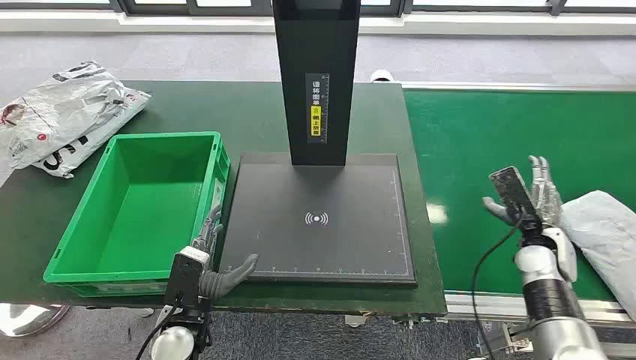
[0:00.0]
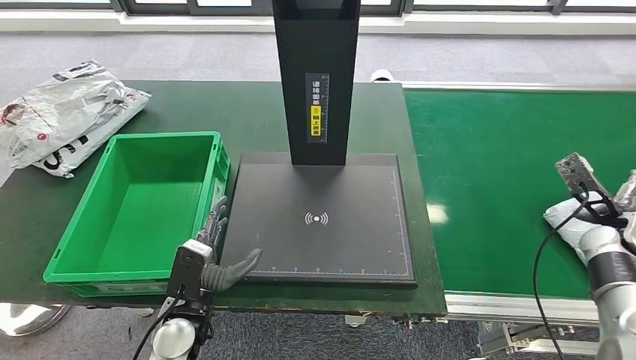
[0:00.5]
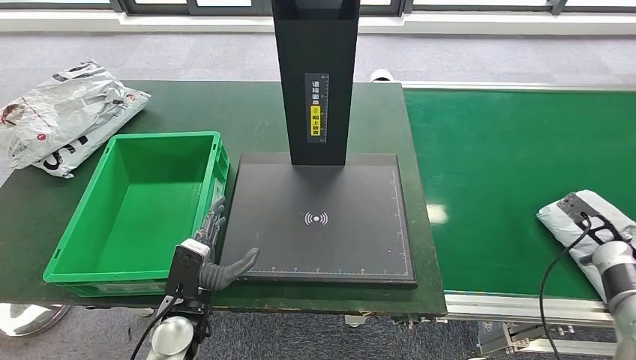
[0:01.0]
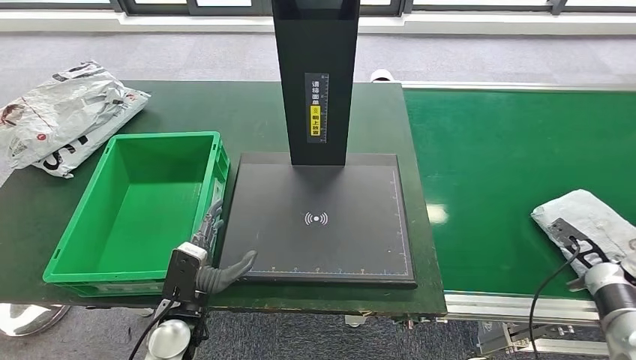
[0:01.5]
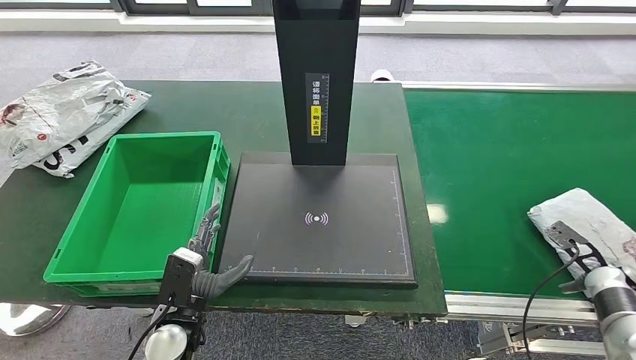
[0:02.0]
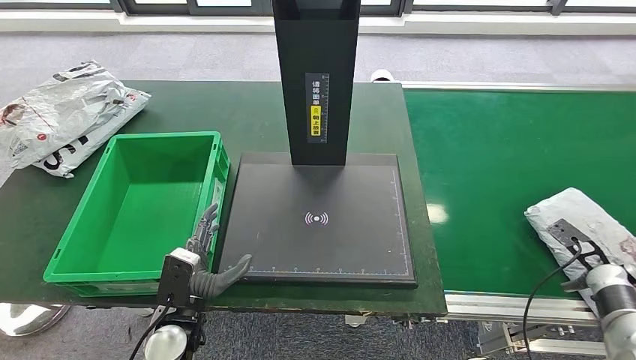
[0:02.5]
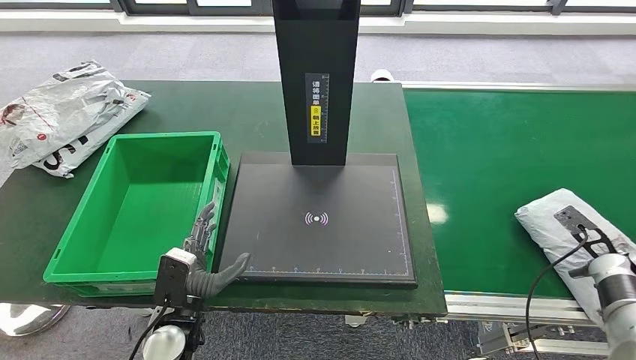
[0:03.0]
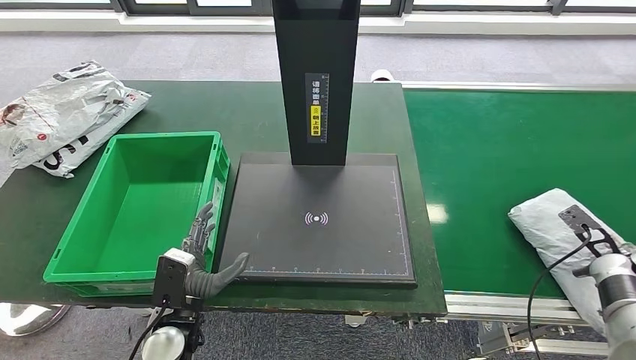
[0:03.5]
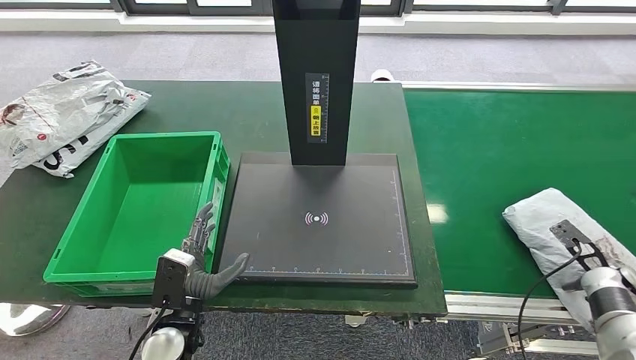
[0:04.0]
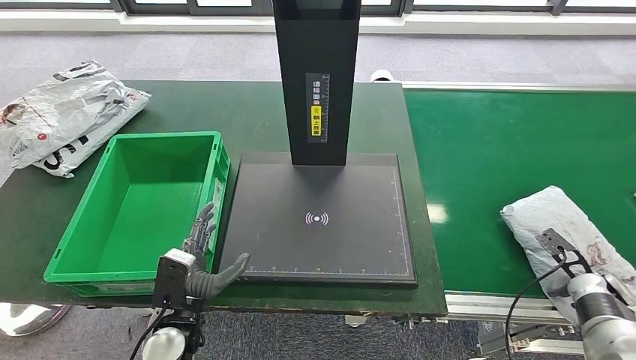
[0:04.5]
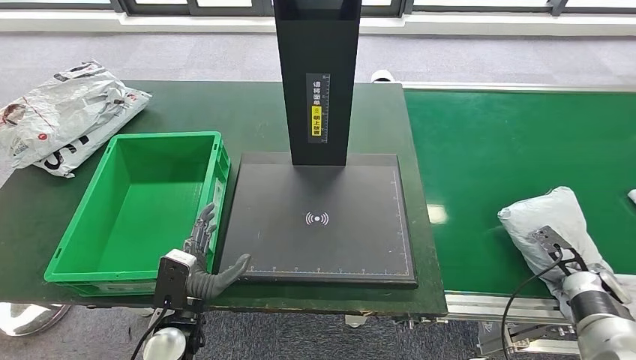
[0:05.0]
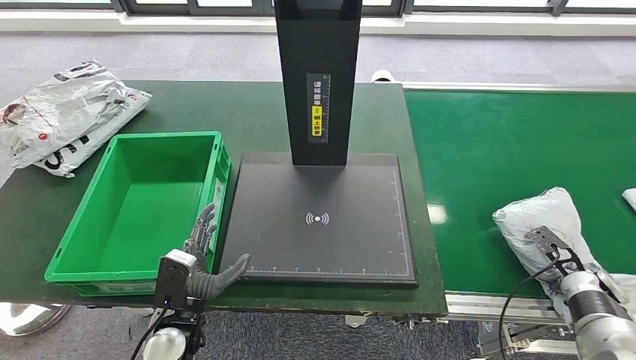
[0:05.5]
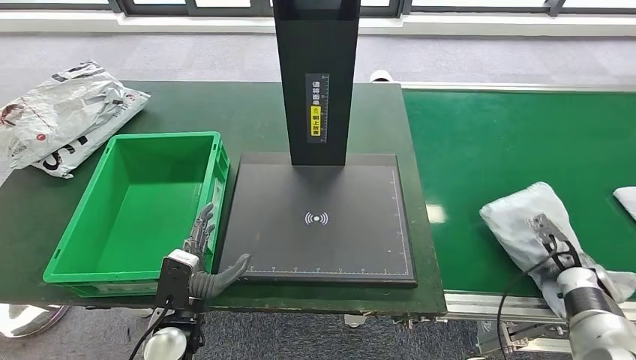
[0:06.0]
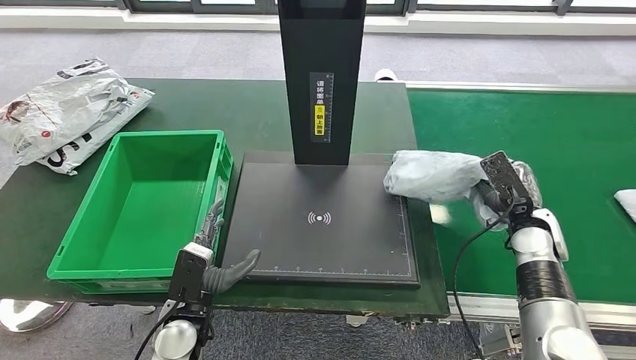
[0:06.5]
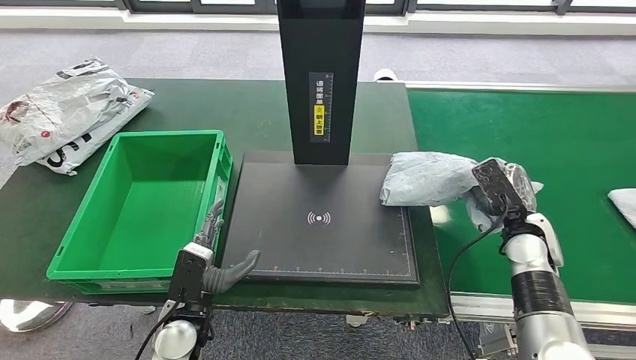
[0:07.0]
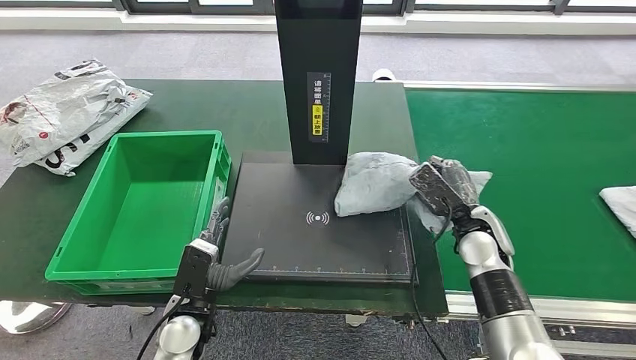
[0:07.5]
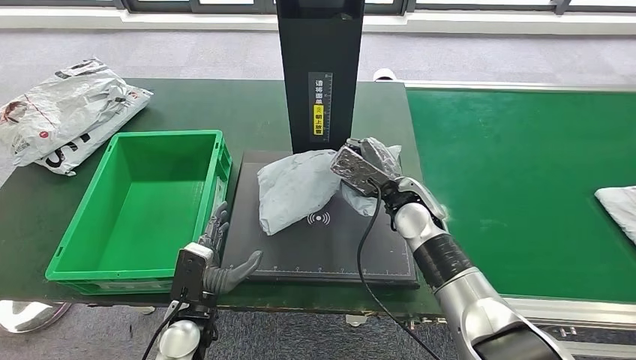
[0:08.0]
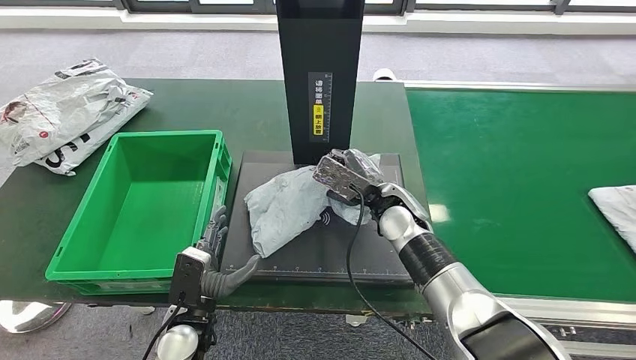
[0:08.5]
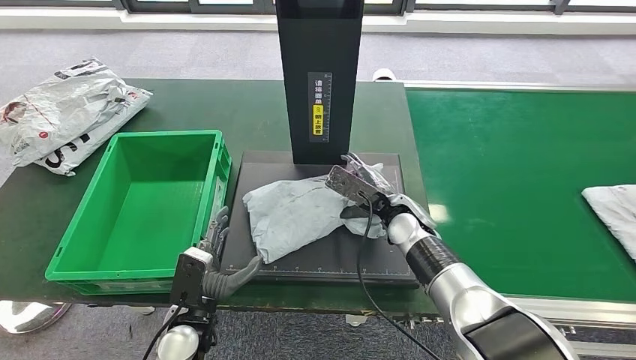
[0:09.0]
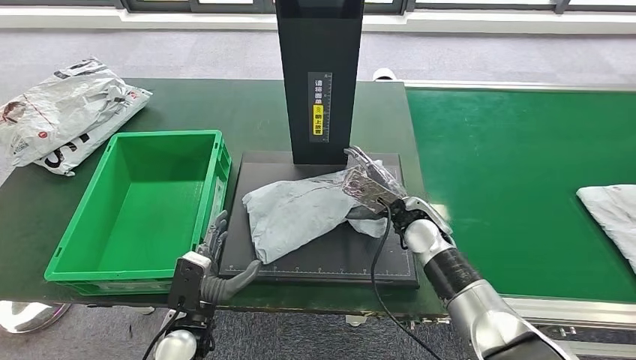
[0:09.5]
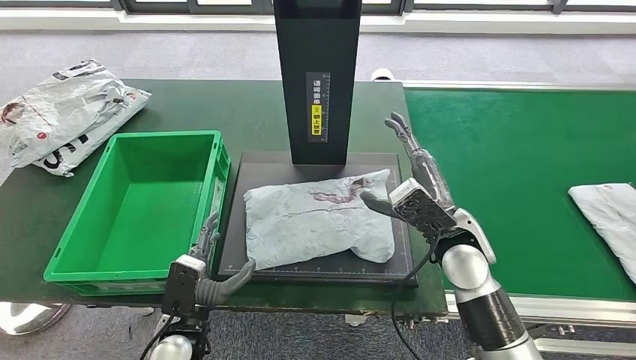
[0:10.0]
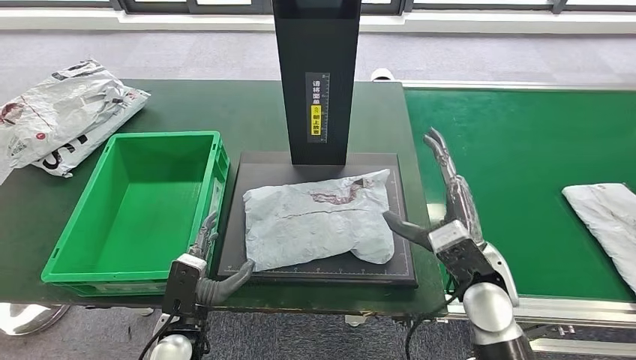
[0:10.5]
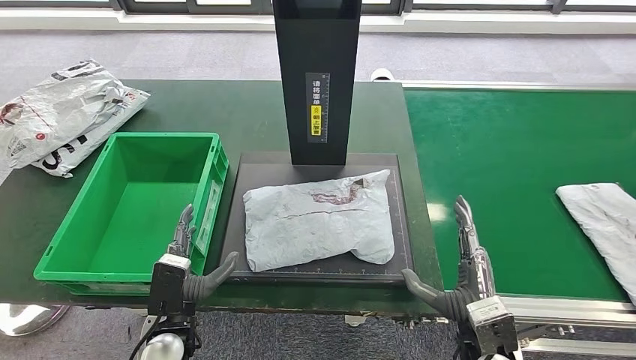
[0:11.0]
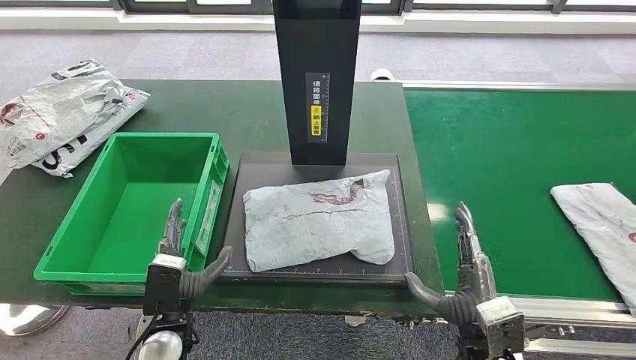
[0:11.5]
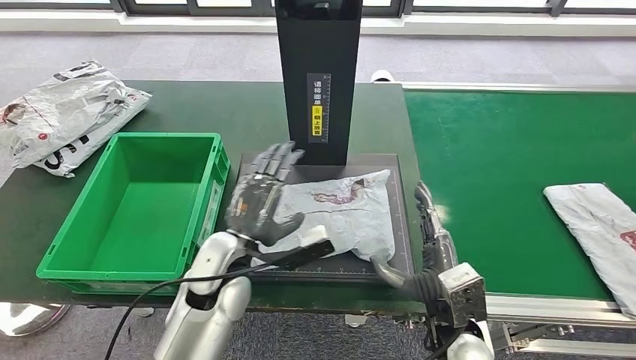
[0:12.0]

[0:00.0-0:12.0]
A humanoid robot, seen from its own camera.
Step, 0:00.0 to 0:07.0: Take the parcel off the conveyor belt.
Step, 0:07.5 to 0:10.0: Place the parcel onto the inbound machine.
0:02.0 to 0:04.0: The hands stay close to where they were, moving slightly.
0:04.0 to 0:06.0: The right hand changes place by approximately 5 cm.

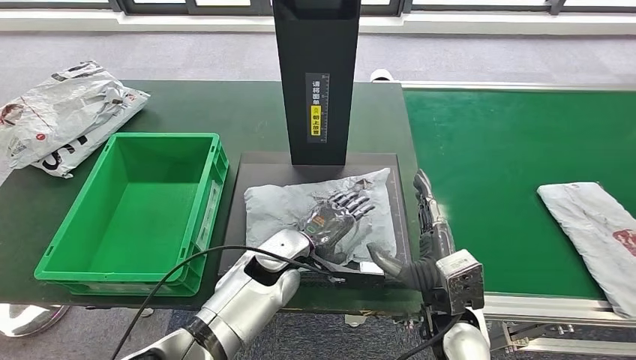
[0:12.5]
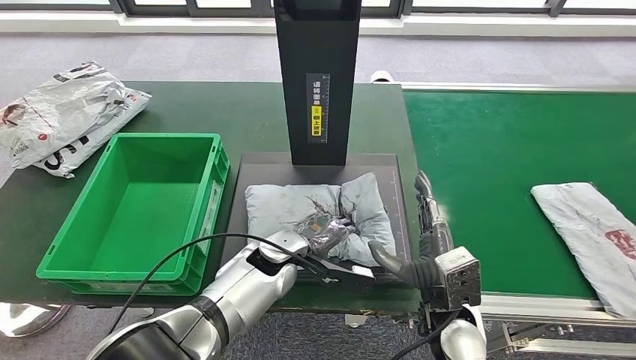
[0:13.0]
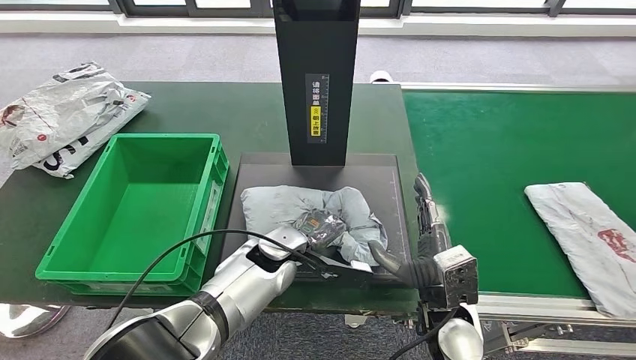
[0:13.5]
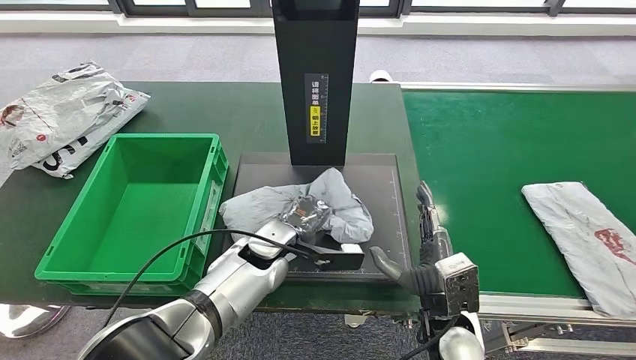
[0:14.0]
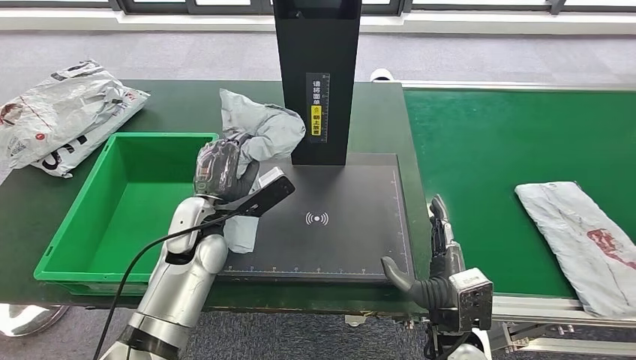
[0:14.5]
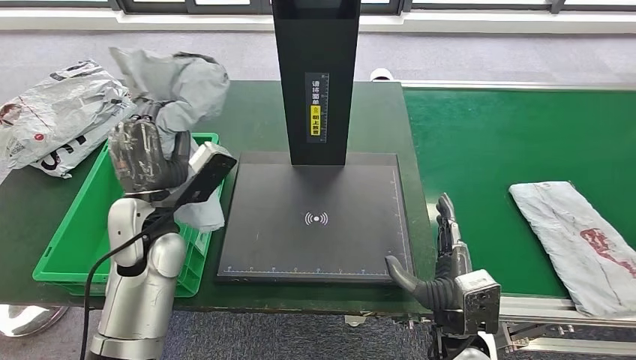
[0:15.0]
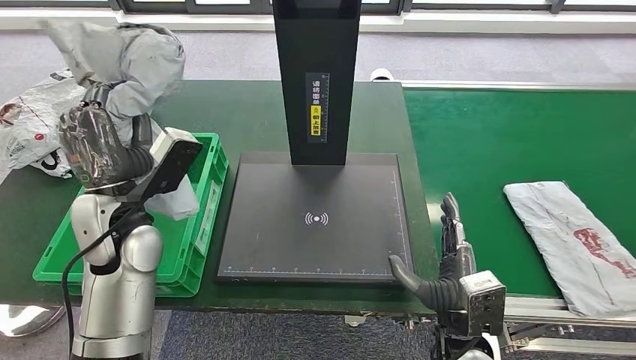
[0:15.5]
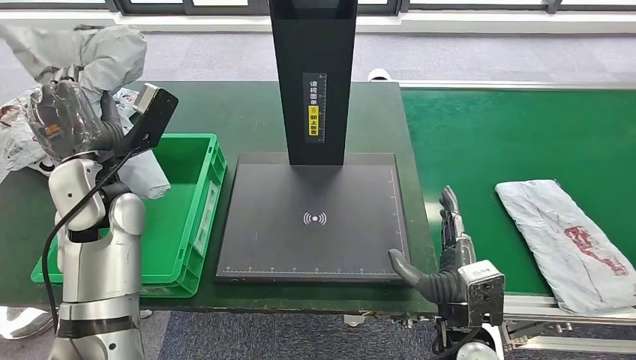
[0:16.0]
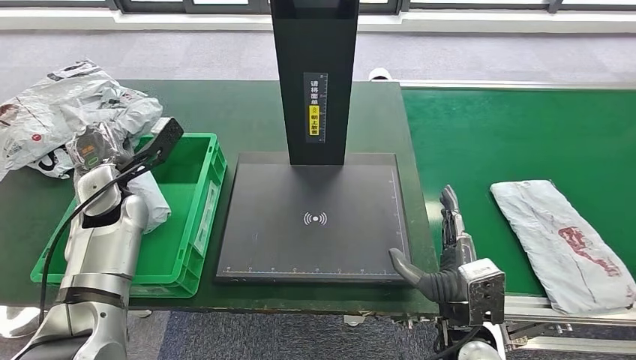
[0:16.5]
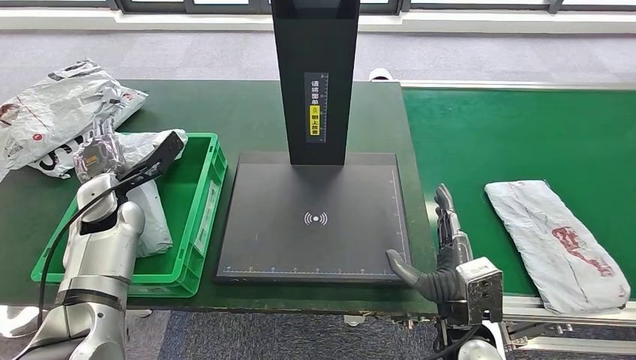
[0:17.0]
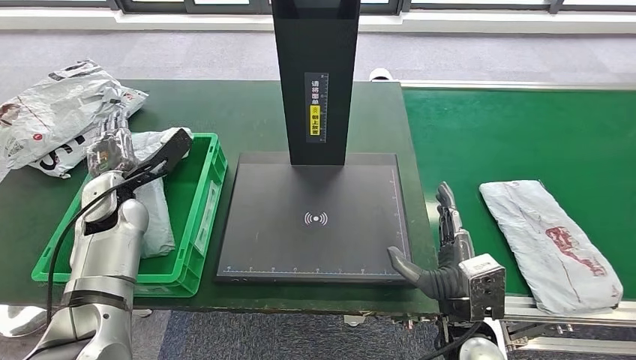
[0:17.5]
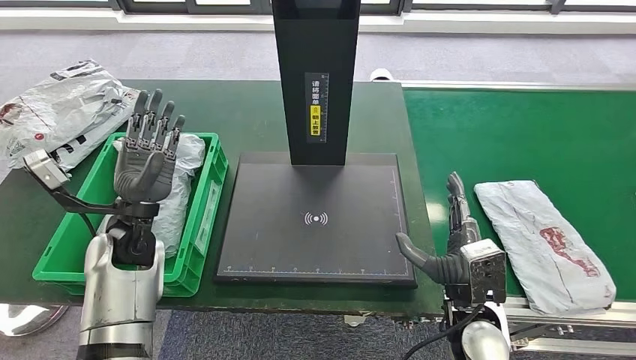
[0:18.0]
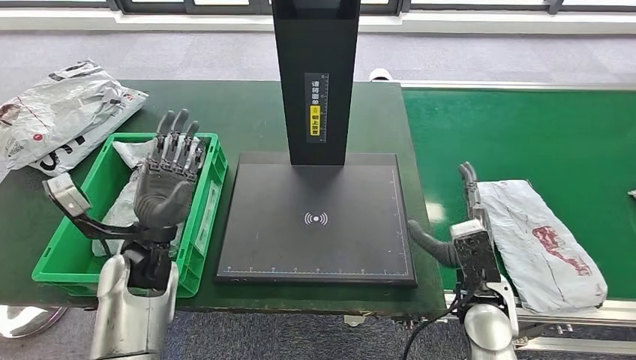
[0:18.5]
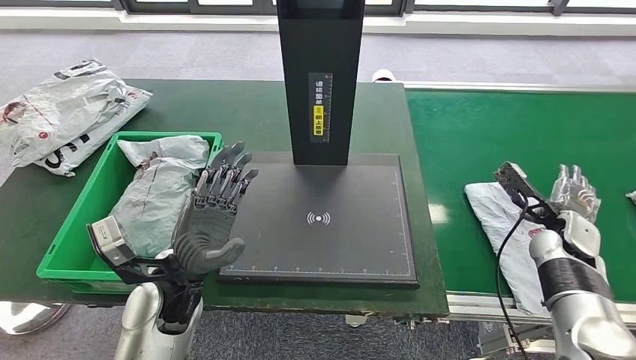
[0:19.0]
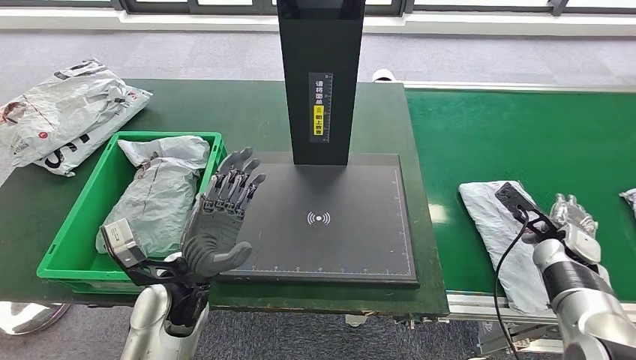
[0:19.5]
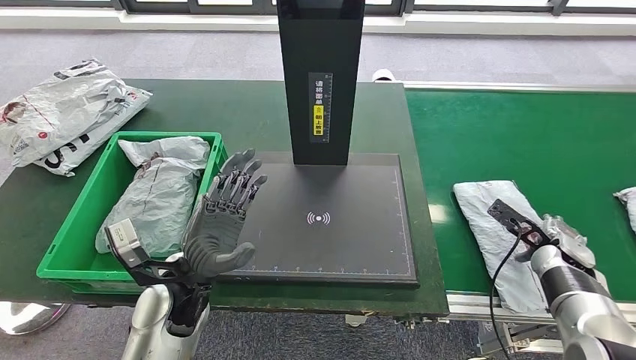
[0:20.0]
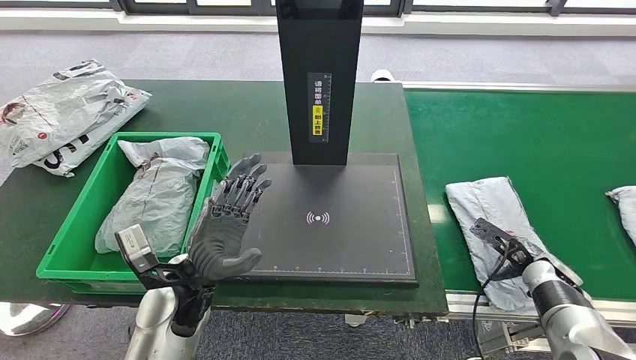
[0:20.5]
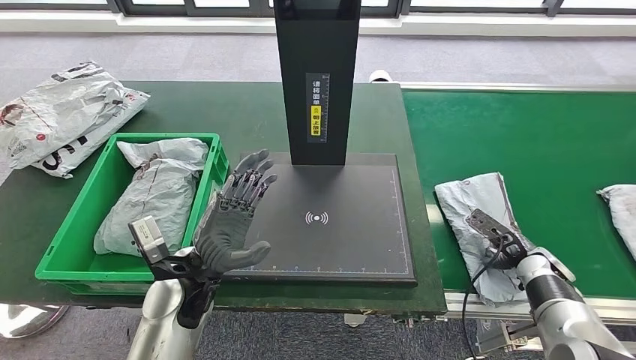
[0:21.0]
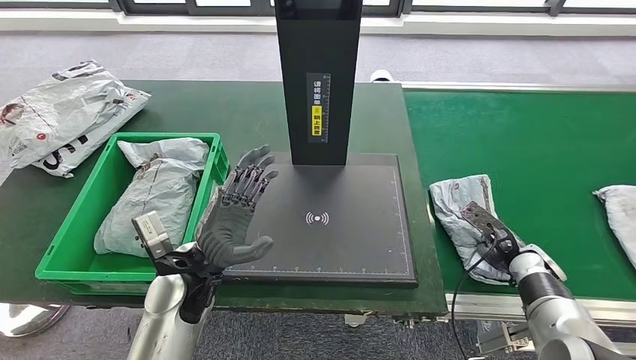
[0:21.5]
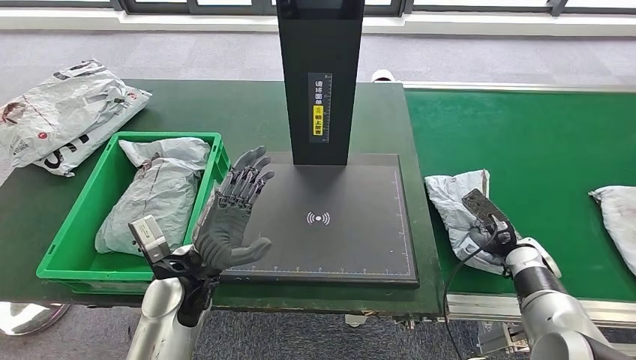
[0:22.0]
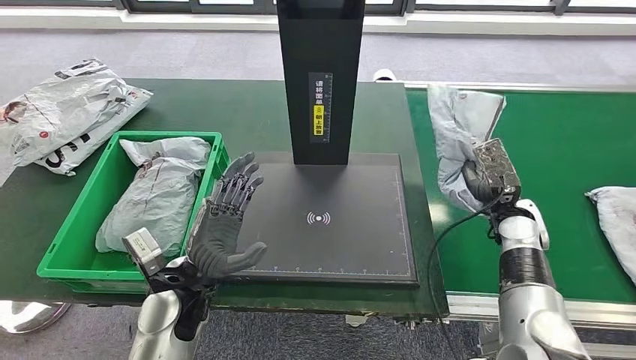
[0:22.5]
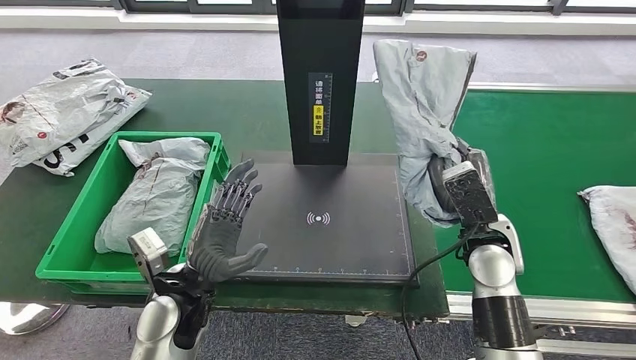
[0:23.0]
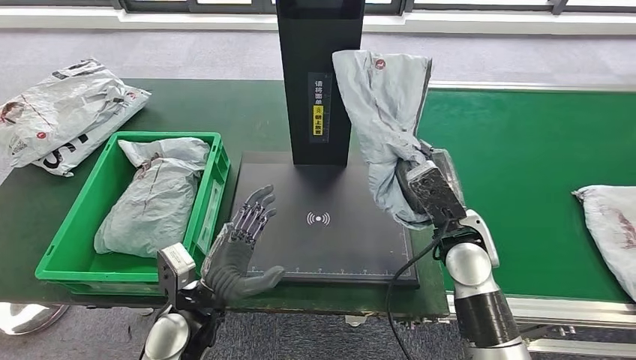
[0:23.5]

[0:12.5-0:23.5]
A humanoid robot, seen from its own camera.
Step, 0:12.5 to 0:14.5: Pick up the parcel from the inbound machine.
Step, 0:15.0 to 0:18.5: Put the parcel inside the courier box.
Step, 0:19.0 to 0:22.5: Pick up the parcel from the conveyor belt.
0:20.0 to 0:21.5: The right hand moves about 5 cm.
